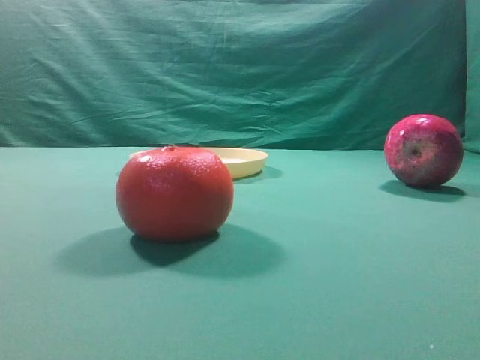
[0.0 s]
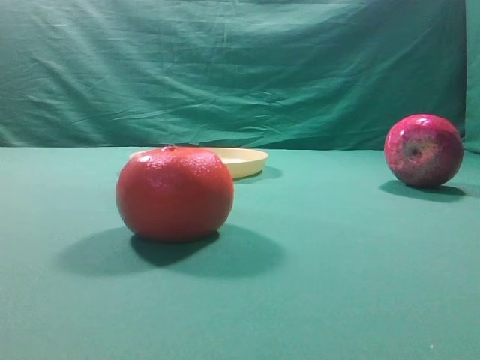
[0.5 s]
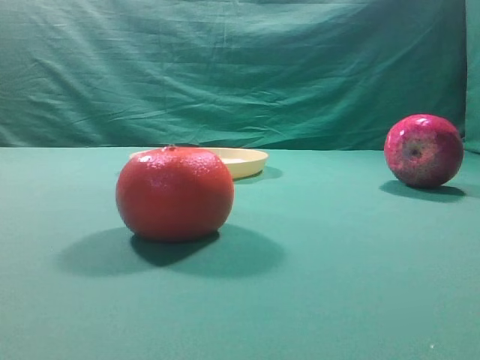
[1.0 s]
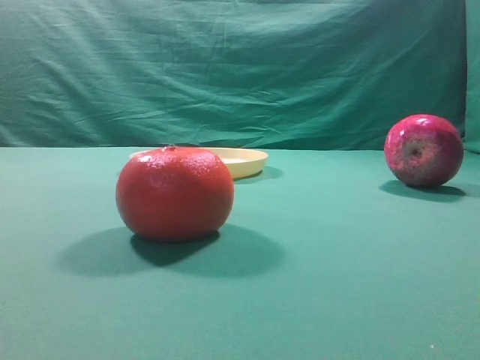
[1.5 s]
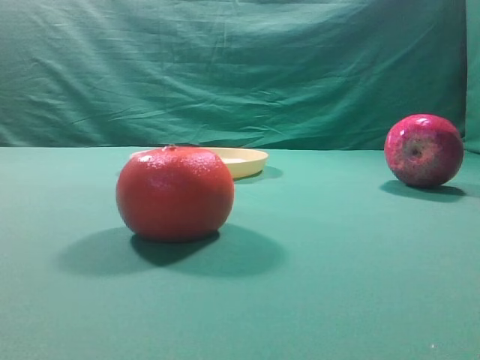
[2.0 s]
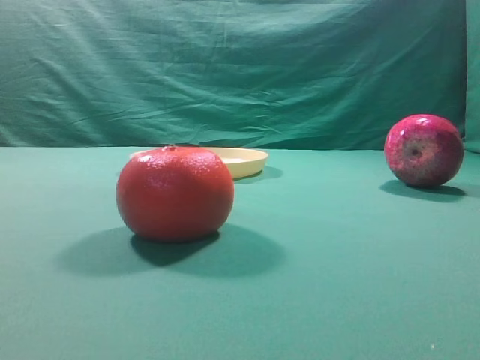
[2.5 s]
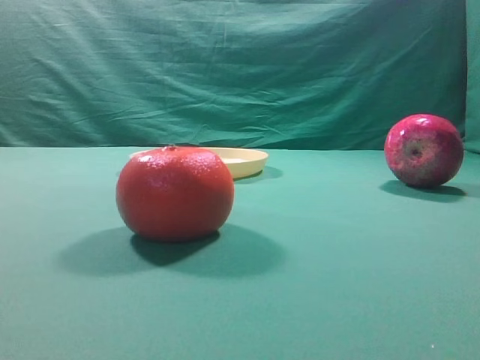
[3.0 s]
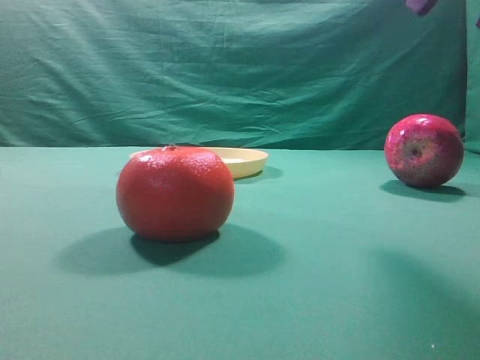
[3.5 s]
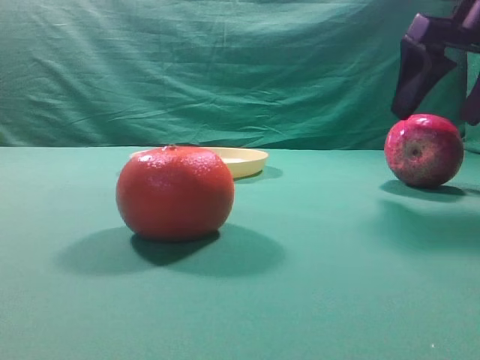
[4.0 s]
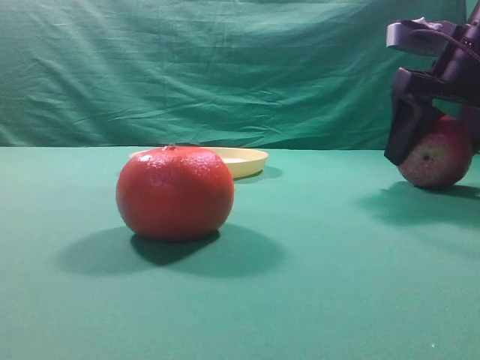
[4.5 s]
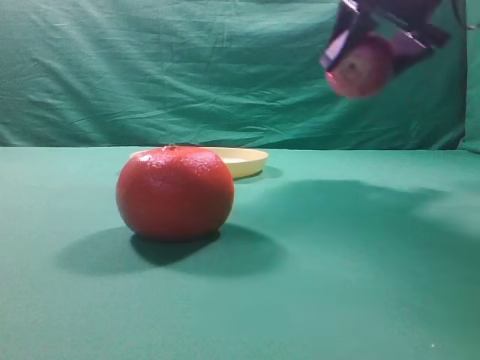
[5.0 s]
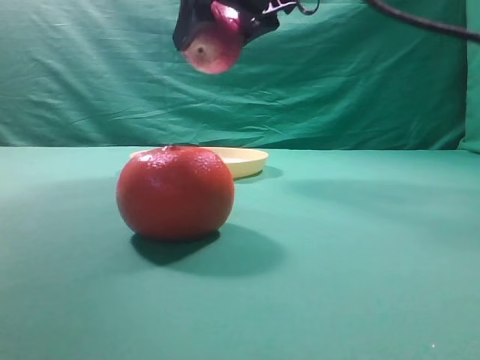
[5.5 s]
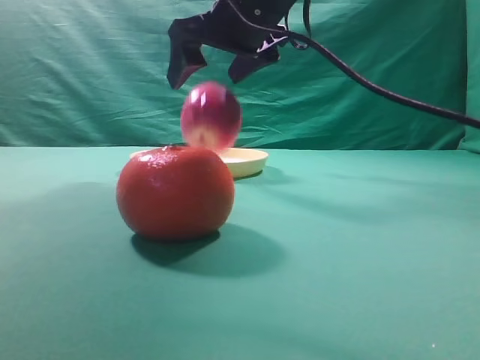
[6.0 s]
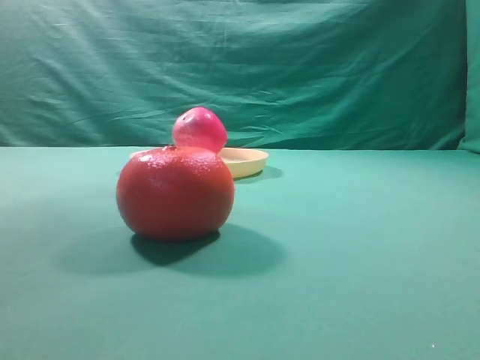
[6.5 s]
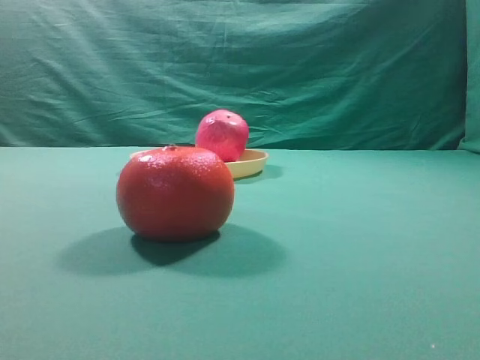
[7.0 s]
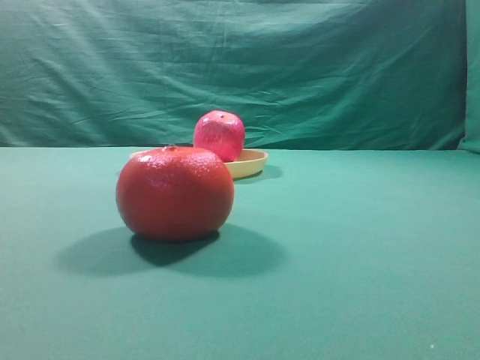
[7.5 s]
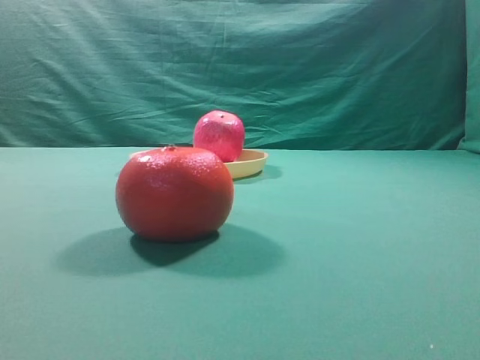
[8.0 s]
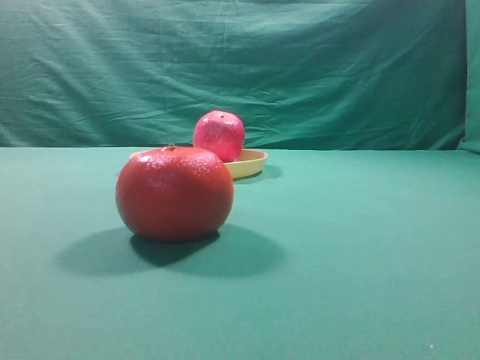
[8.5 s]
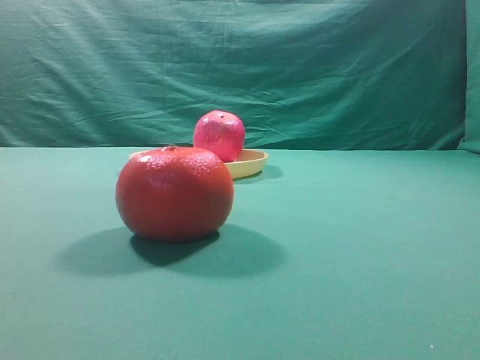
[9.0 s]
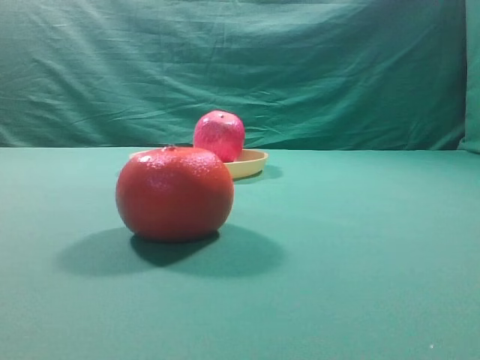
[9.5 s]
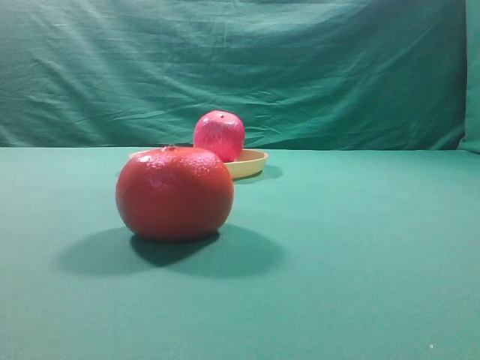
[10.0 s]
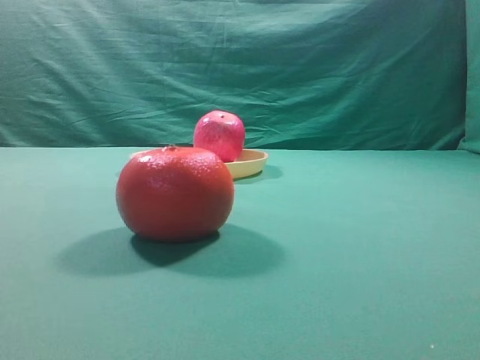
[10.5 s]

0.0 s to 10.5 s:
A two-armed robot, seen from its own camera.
Task of the whole recording: grasp the apple and place it into the yellow plate.
Step, 0.0 to 4.5 s: Grasp the fruit that can keep the doctor away.
Step, 5.0 to 6.0 s: Place the picked object into the yellow plate.

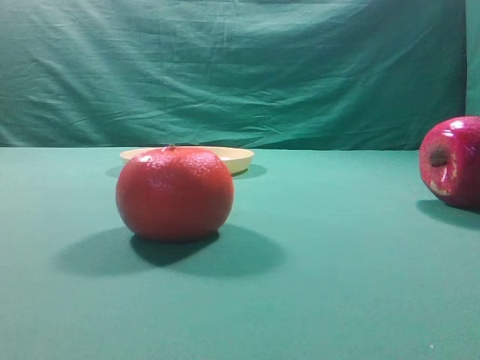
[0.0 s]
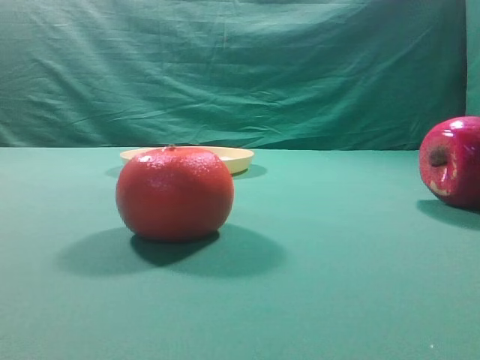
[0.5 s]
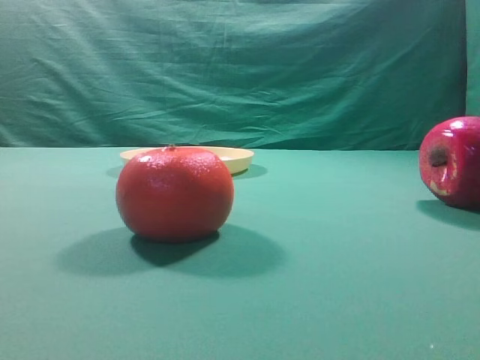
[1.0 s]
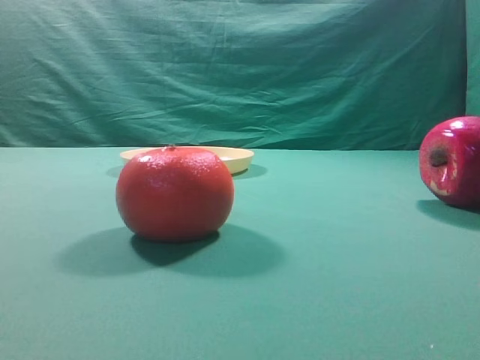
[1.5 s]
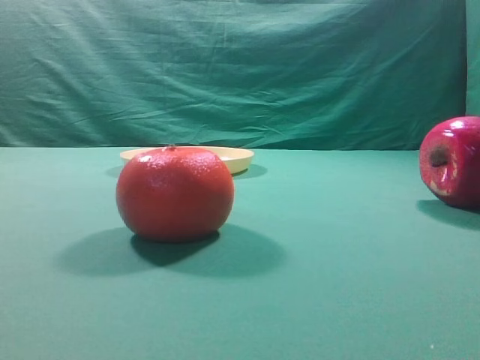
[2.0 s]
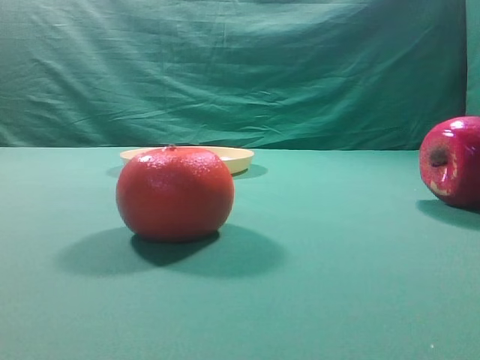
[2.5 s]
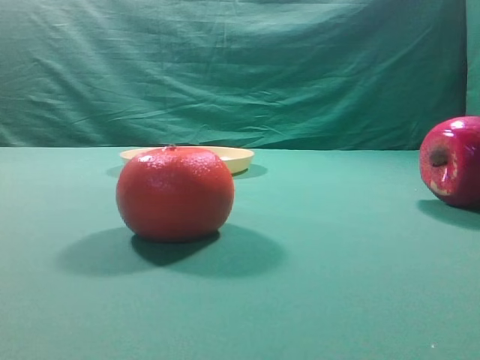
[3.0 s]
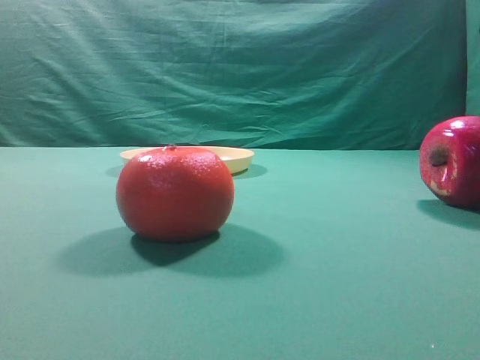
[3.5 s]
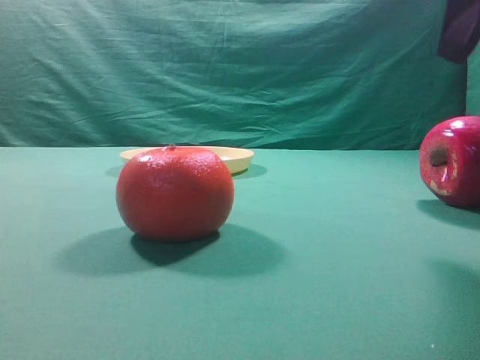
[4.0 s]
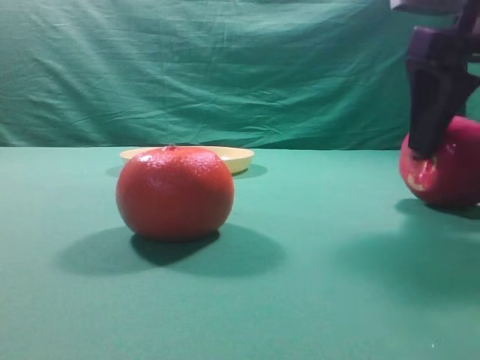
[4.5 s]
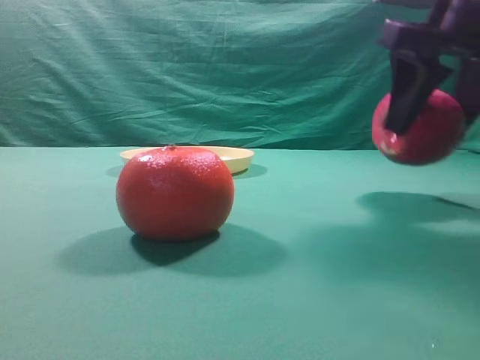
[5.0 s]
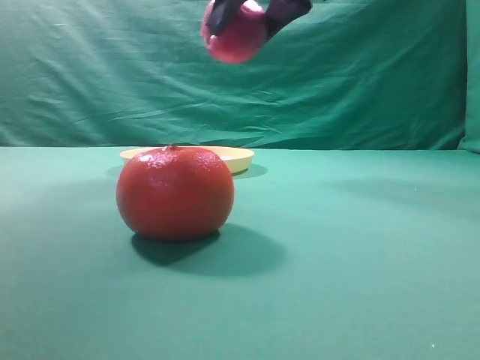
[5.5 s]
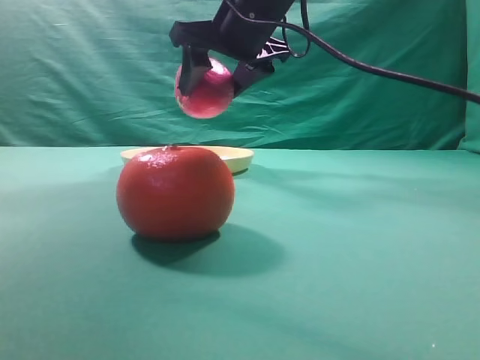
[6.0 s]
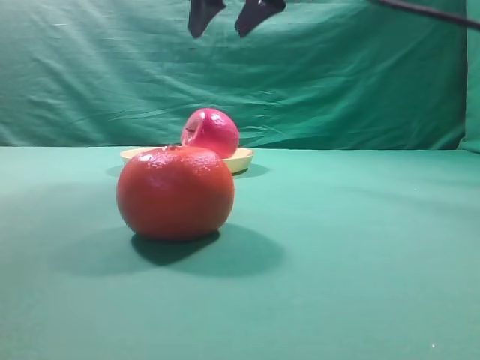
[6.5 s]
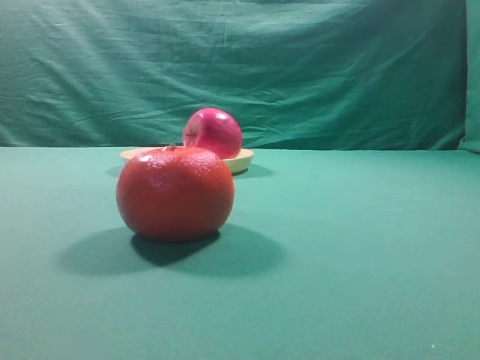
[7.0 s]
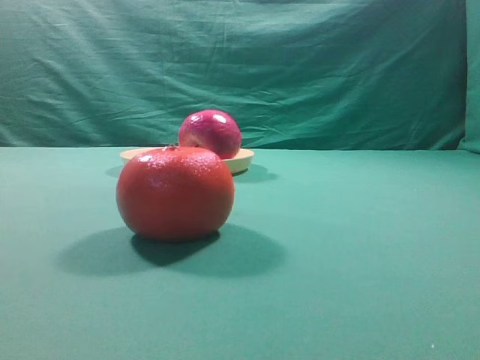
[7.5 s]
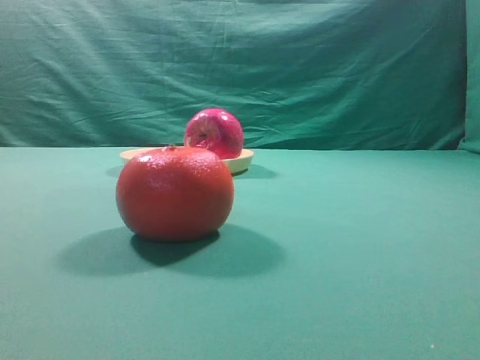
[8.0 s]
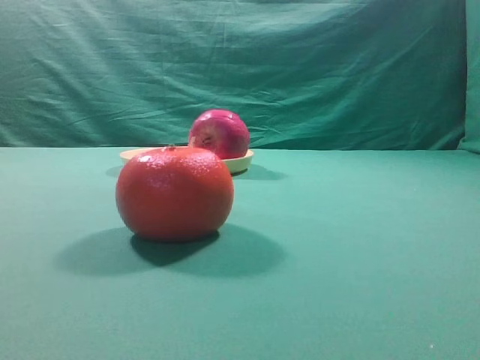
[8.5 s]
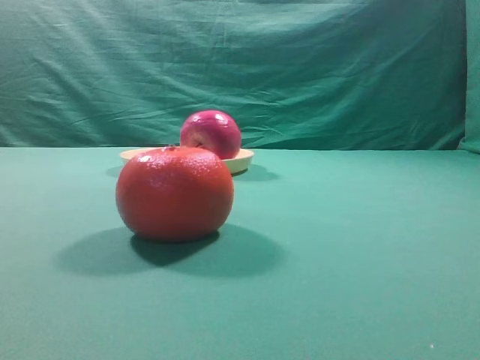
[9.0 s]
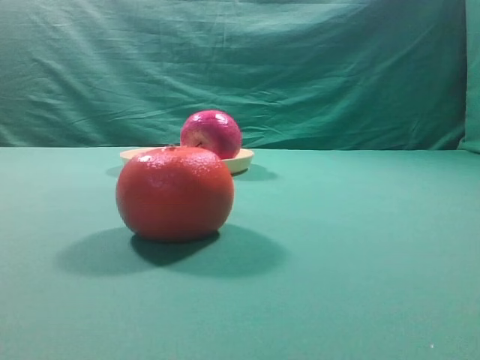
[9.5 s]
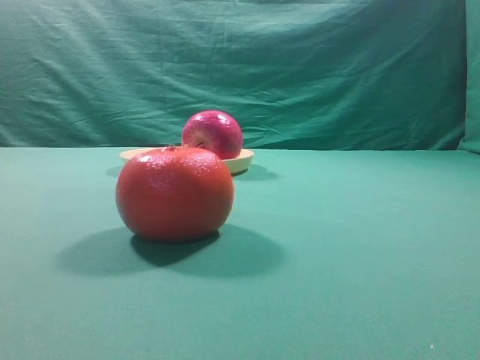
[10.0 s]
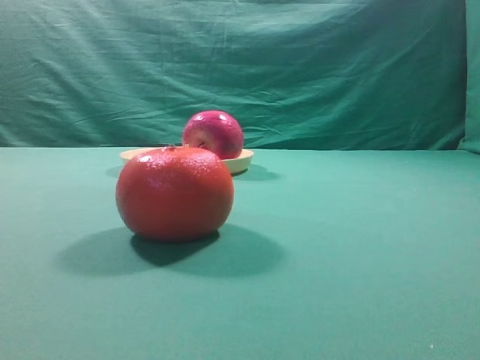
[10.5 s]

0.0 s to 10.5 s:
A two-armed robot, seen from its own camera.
Task of the whole recording: grasp the apple and place it into the yellow plate.
Step, 0.0 to 5.0 s: Grasp the fruit that can keep the doctor away.
Step, 5.5 to 6.0 s: Place the picked object into the yellow plate.

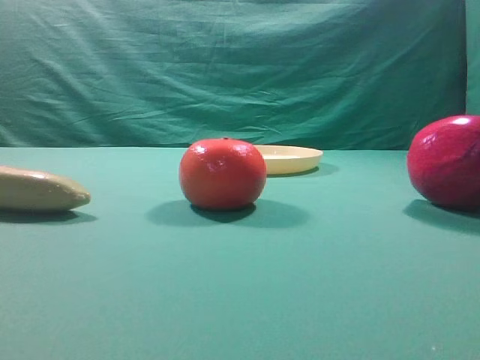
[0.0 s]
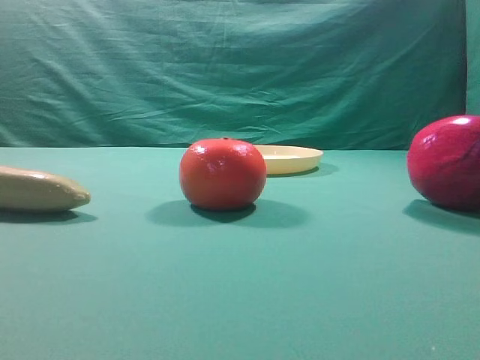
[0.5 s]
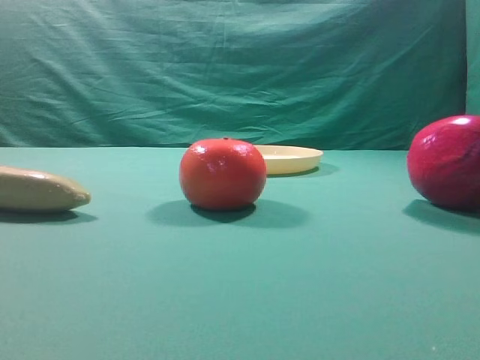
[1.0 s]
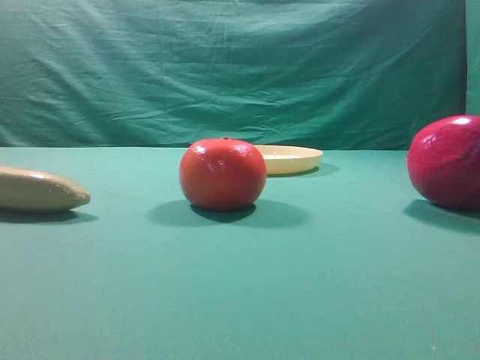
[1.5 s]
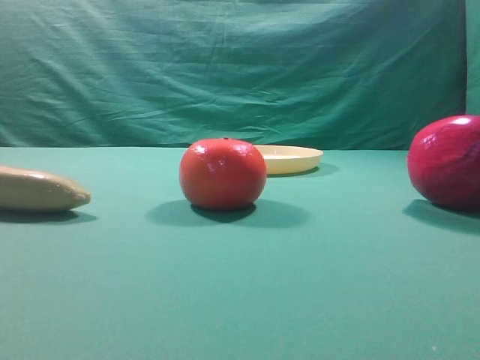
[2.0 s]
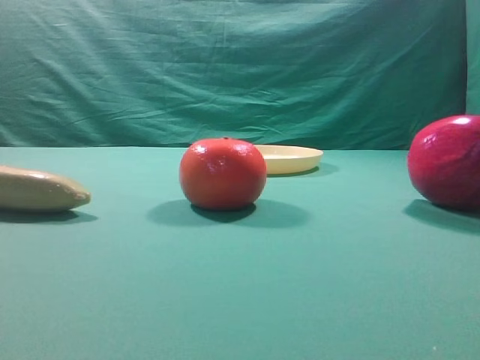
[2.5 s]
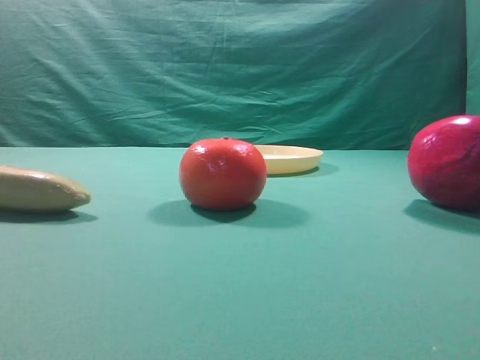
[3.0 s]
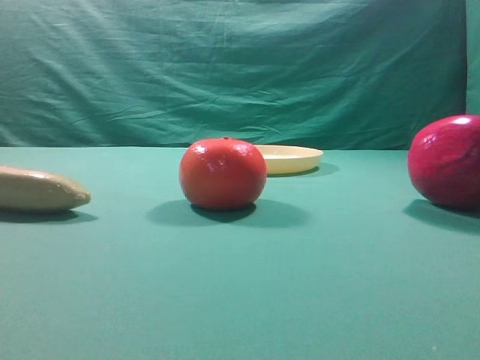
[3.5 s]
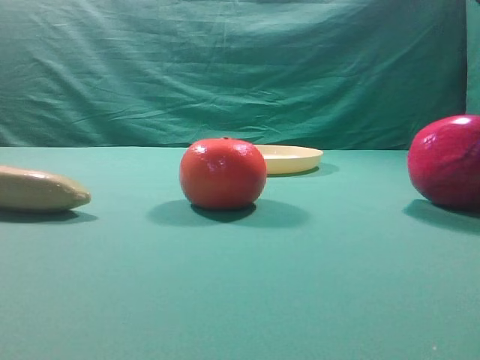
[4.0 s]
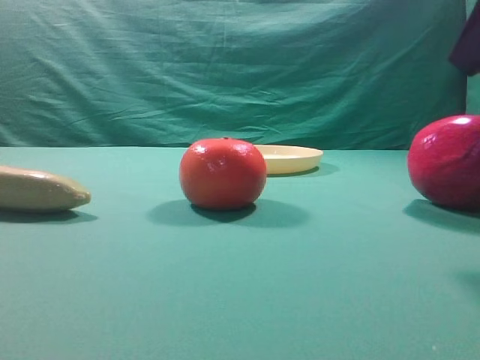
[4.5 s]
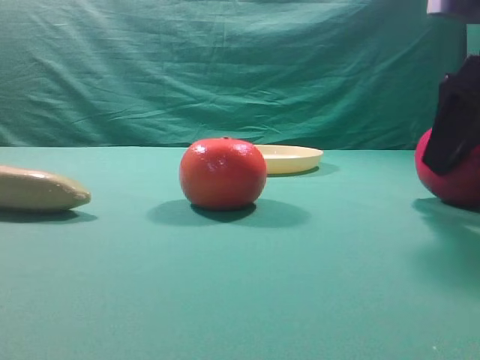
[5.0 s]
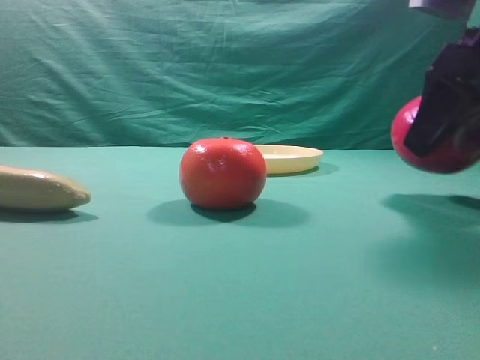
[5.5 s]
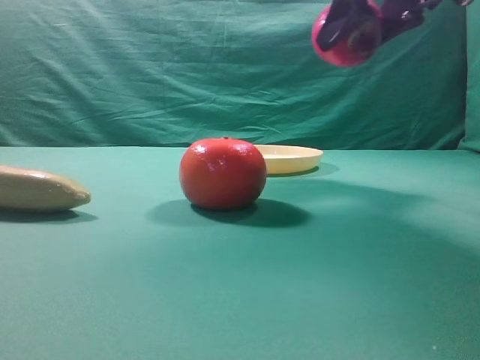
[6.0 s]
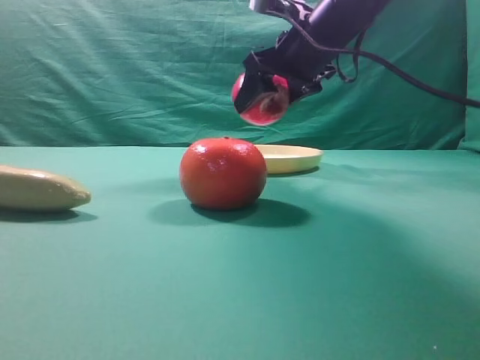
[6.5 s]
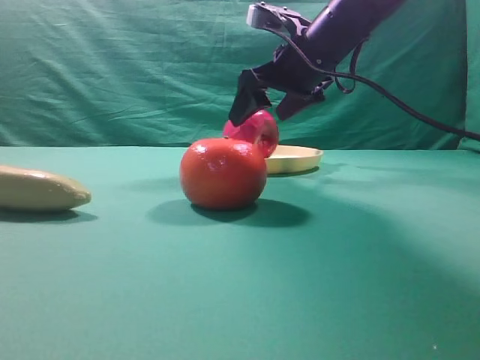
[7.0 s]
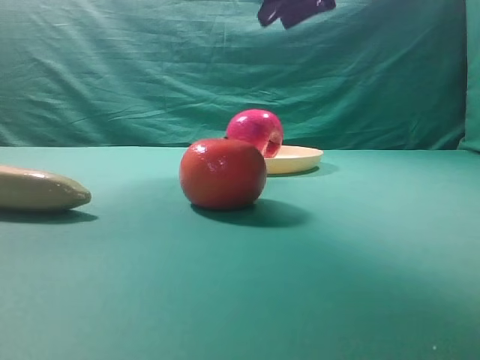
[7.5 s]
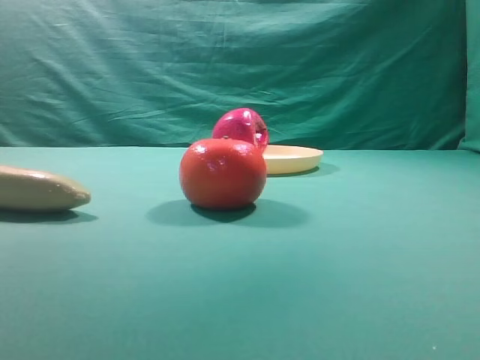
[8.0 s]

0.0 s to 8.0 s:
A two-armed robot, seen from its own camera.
Task of the whole recording: grasp the apple and place it into the yellow plate.
Step, 0.0 to 5.5 s: Grasp the fruit that can keep the doctor away.
Step, 6.0 to 7.0 s: Place the picked object into the yellow plate.
